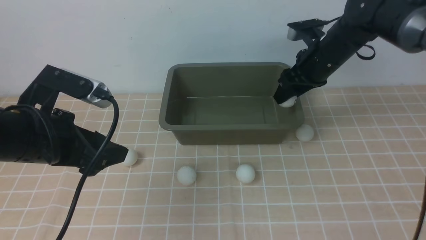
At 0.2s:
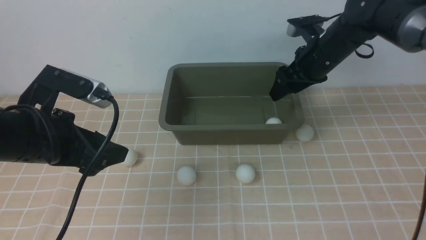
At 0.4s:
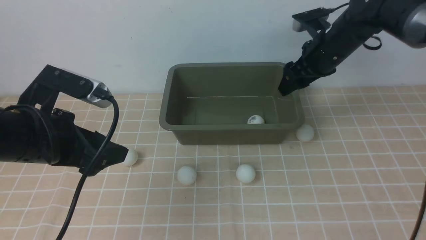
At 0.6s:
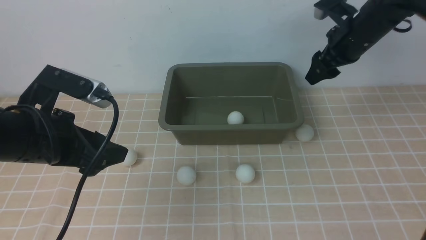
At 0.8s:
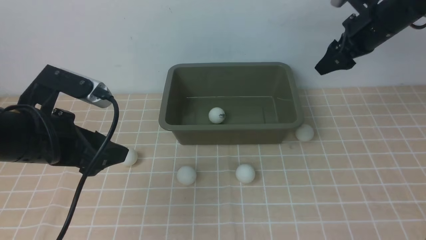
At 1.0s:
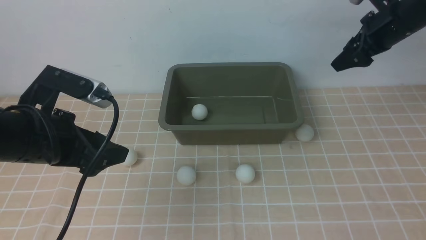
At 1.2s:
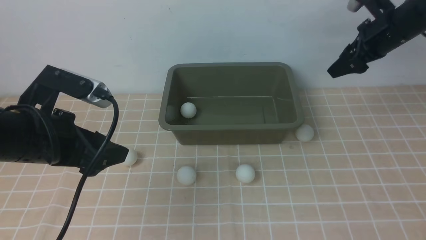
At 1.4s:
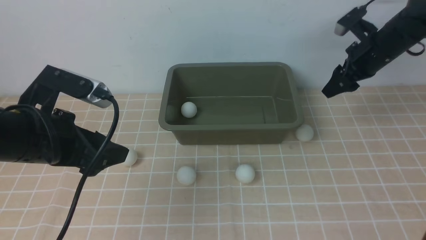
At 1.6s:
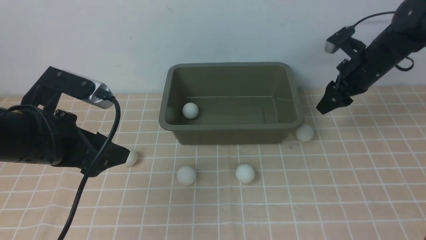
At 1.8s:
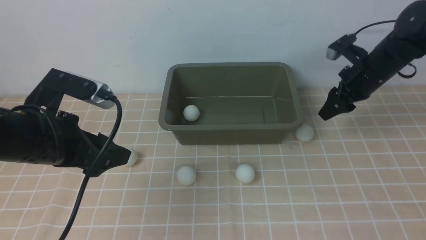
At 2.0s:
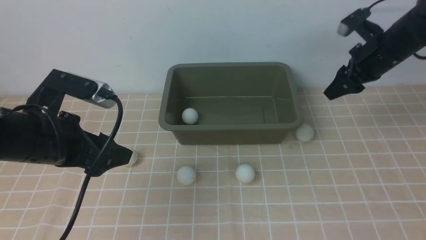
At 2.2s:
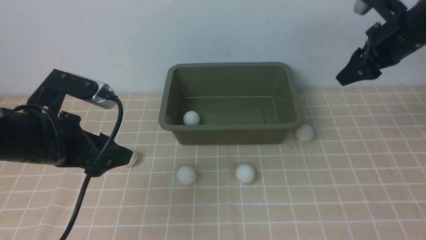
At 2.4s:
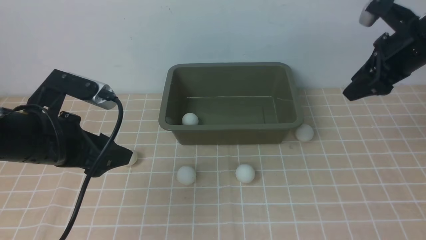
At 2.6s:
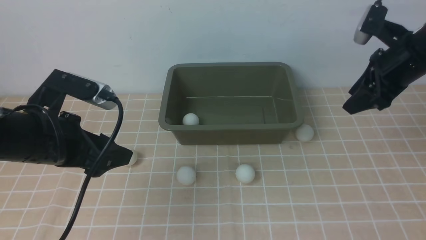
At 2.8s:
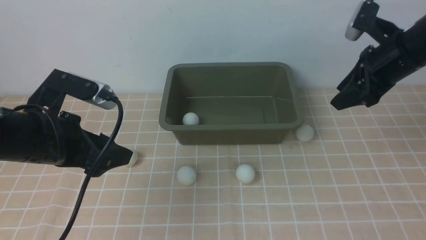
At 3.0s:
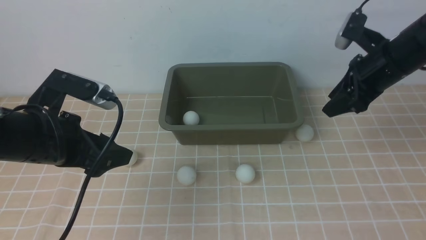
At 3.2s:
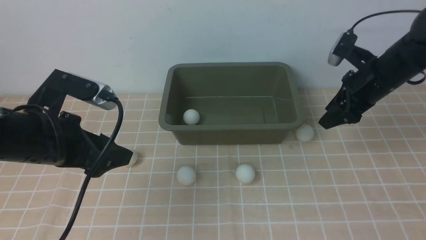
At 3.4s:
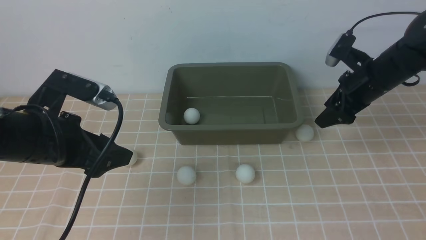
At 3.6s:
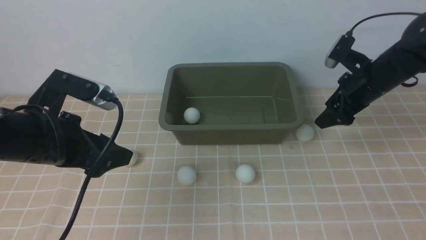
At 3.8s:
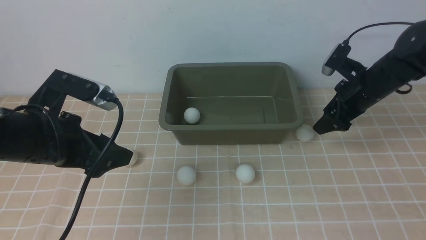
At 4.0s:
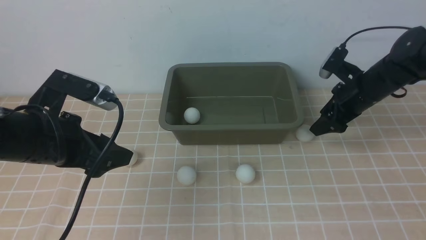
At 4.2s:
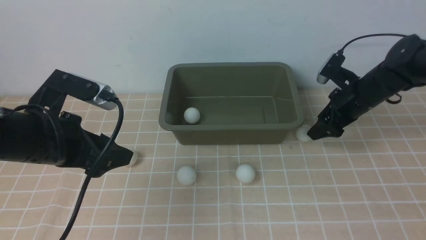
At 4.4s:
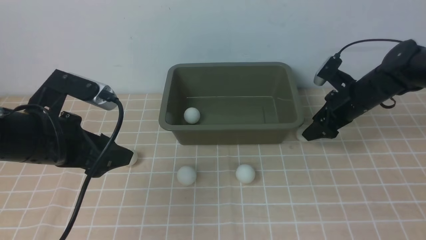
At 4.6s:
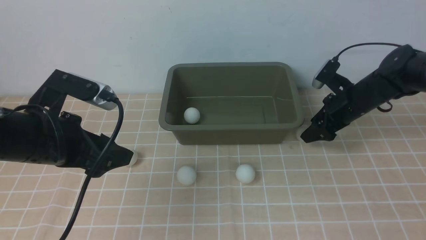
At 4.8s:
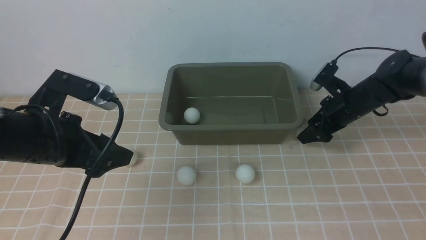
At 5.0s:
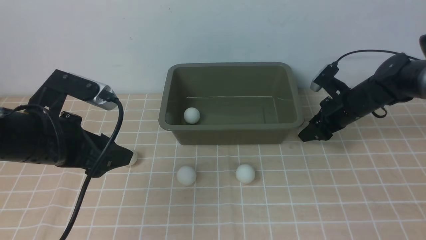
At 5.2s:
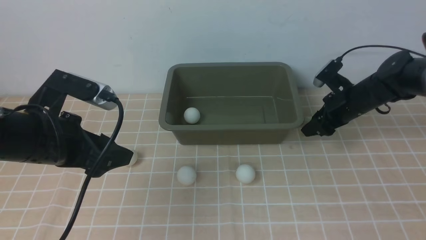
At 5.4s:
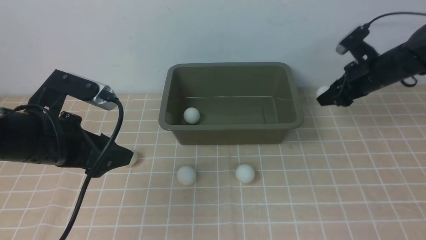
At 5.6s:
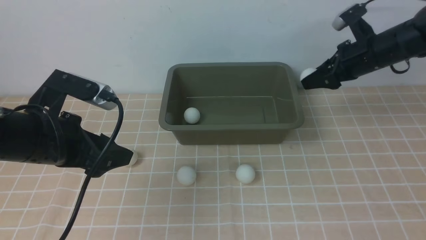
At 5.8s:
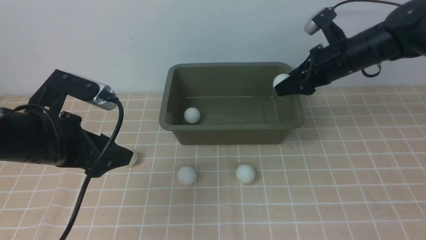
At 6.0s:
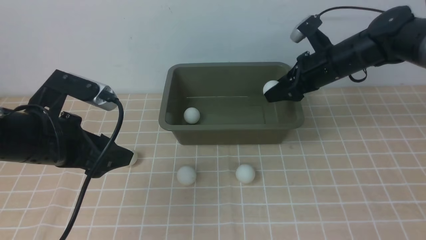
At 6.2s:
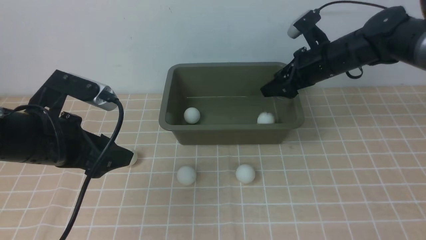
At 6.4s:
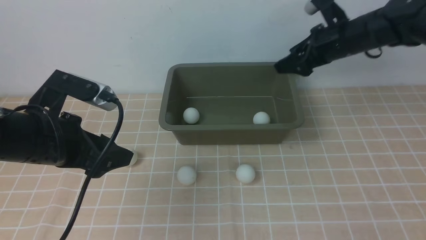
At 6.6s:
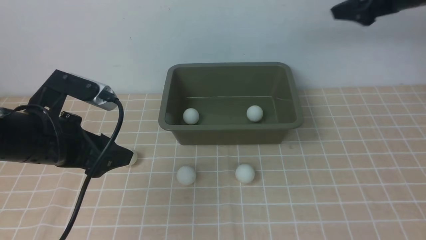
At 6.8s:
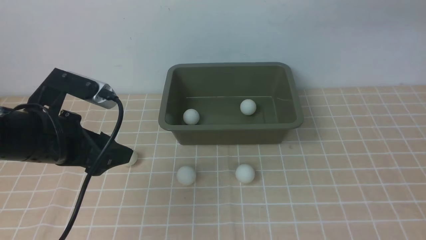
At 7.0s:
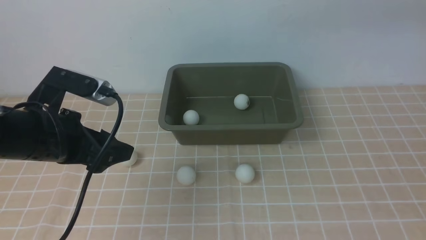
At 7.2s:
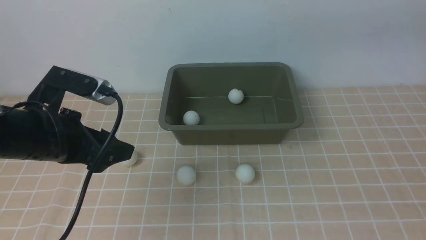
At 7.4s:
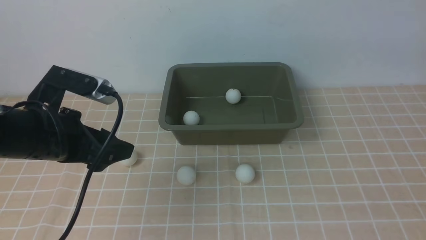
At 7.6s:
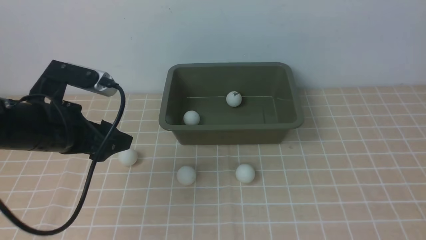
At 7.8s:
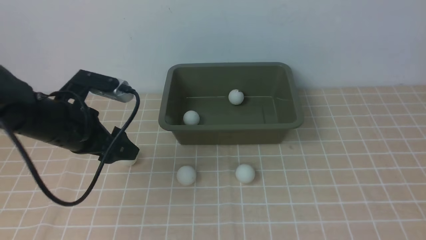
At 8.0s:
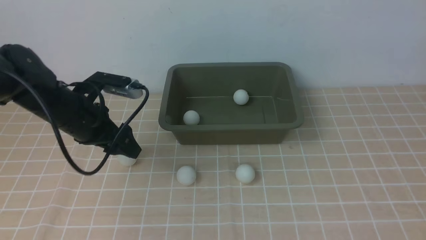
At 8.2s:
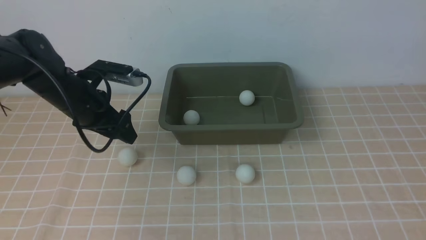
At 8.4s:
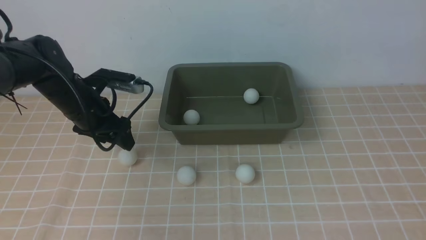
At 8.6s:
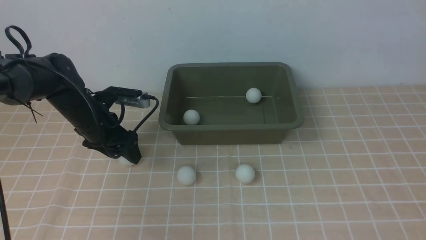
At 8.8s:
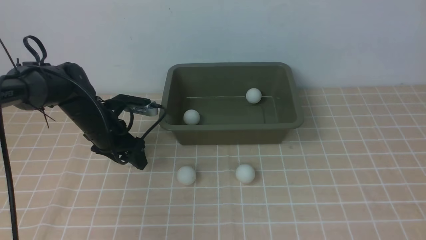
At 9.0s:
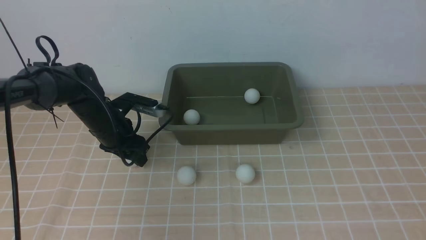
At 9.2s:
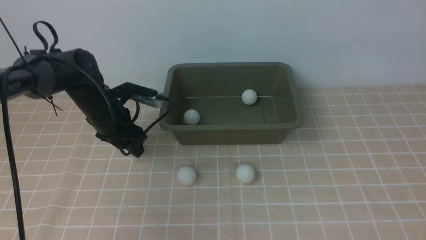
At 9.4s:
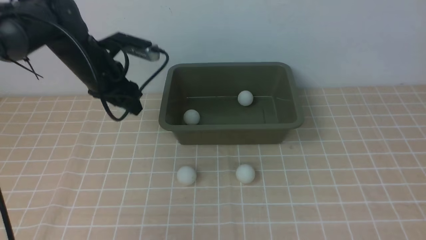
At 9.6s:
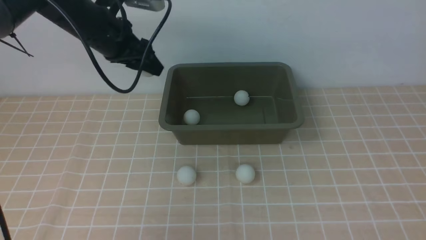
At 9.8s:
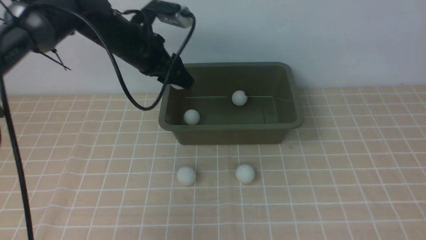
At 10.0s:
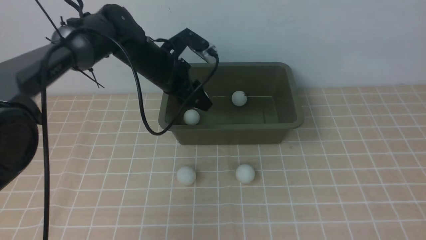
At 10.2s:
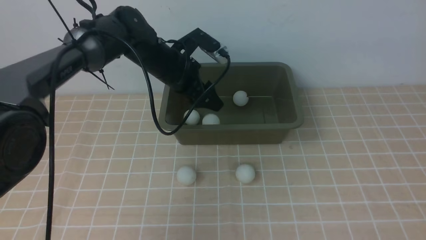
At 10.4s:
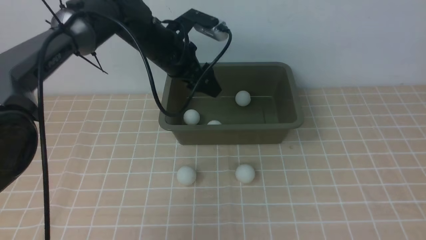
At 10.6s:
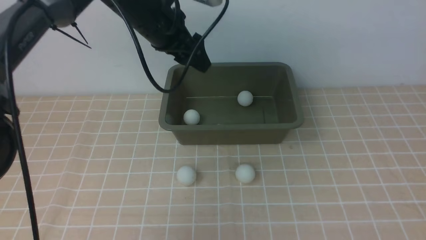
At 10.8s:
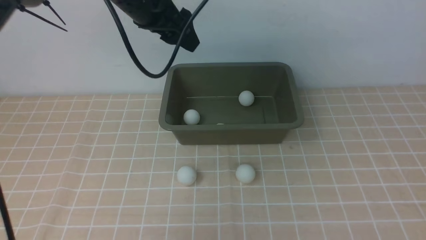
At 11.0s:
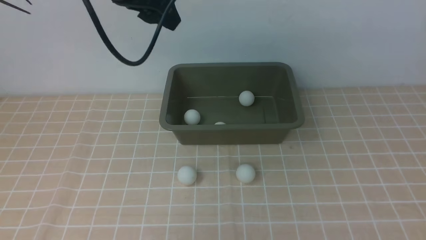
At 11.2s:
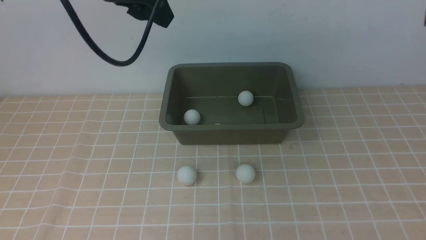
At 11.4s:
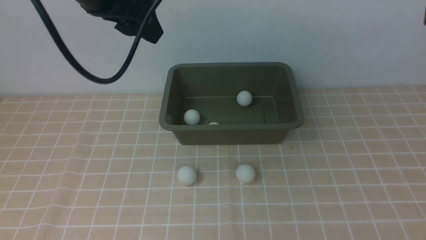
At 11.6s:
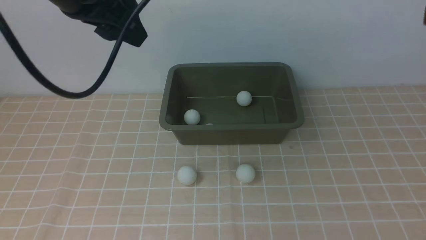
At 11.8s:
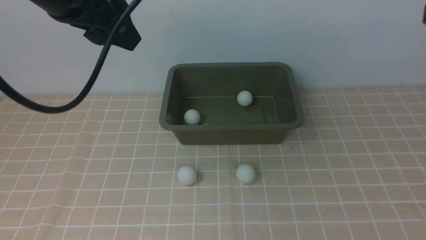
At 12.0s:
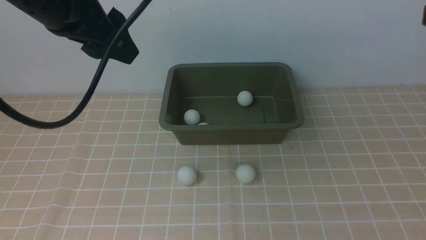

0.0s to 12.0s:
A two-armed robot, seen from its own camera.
Step, 0.0s to 1.4s: use the right arm to put the table tennis ball into the box.
Step, 1.6s to 5.6s: use the right arm to clamp the table tennis ball closest to it.
Step, 5.8s to 6.4s: use the right arm to put the table tennis ball into the box.
Step, 6.6s to 9.2s: use the left arm to clamp the table tennis ball closest to it.
Step, 9.4s to 10.4s: use the left arm to put the table tennis ball into the box.
0.0s to 1.6s: The right gripper travels to the right by about 10 cm, and opens and closes again.
1.6s to 3.0s: The right gripper shifts approximately 5 cm backward.
3.0s to 4.4s: The right gripper is displaced downward by roughly 10 cm, and opens its fingers.
4.4s to 6.0s: The right gripper travels upward and to the left by approximately 10 cm, and closes.
6.0s to 7.6s: The right gripper goes approximately 30 cm backward, upward and to the right.
7.6s to 9.0s: The left gripper travels forward and downward by about 15 cm, and closes its fingers.
9.0s to 10.4s: The left gripper goes up and down, some 15 cm each way, reversing 2 times, and opens.
10.4s to 12.0s: The left gripper moves backward, upward and to the left, roughly 20 cm.

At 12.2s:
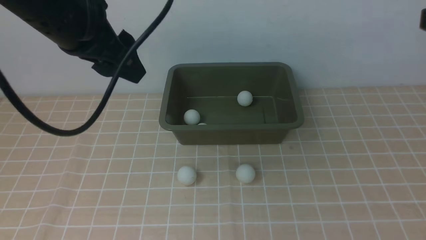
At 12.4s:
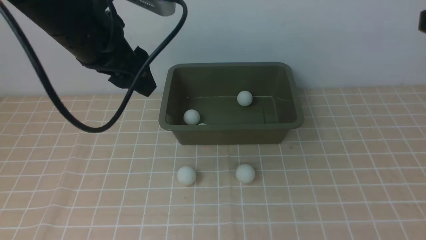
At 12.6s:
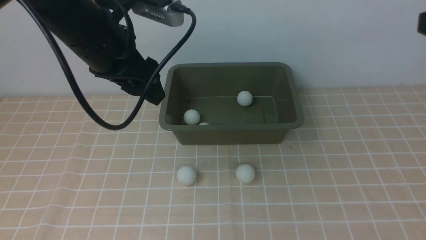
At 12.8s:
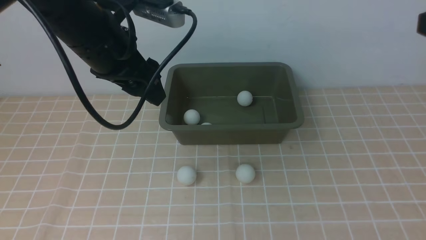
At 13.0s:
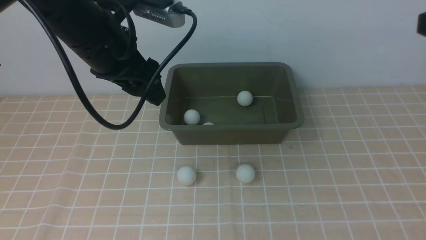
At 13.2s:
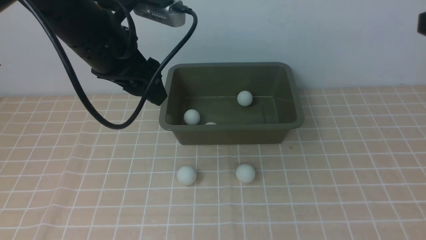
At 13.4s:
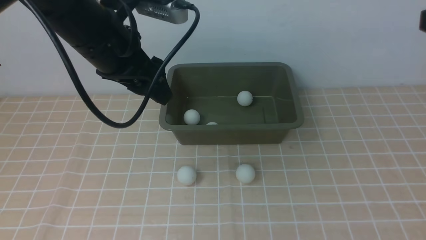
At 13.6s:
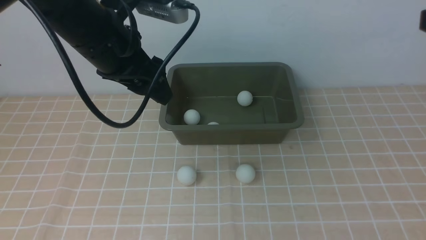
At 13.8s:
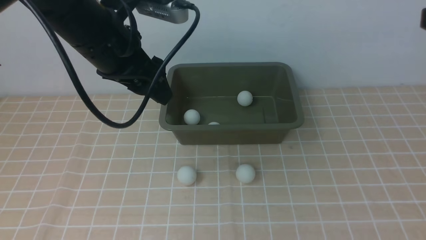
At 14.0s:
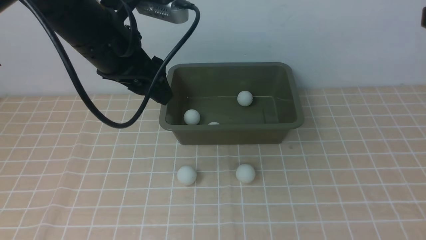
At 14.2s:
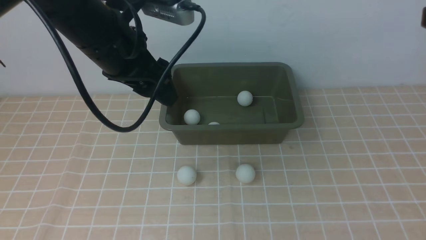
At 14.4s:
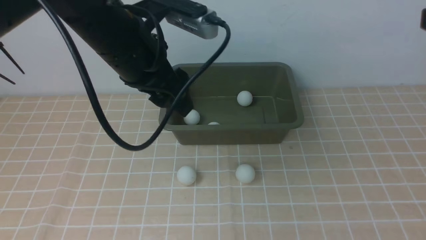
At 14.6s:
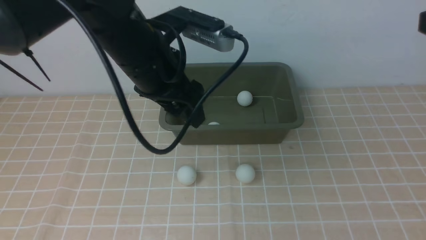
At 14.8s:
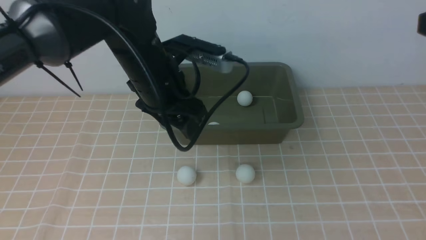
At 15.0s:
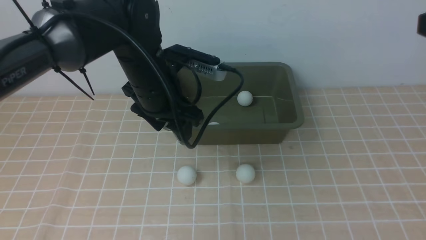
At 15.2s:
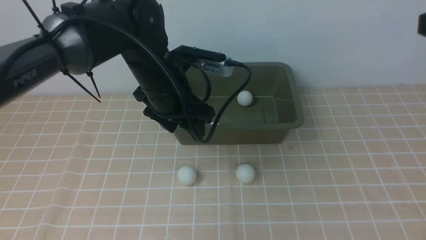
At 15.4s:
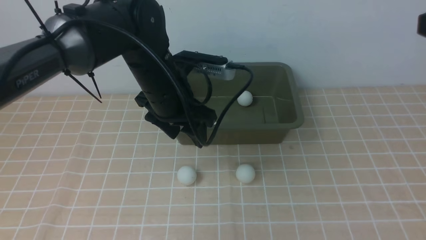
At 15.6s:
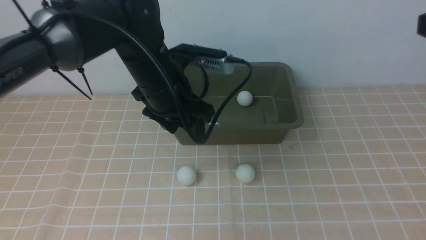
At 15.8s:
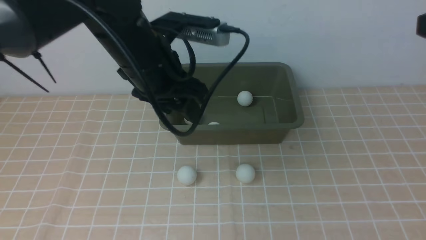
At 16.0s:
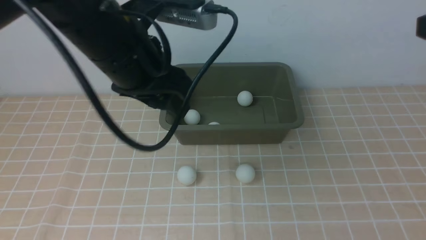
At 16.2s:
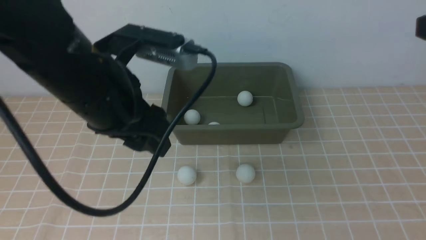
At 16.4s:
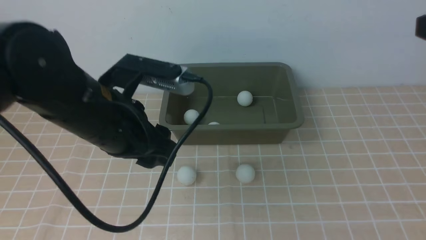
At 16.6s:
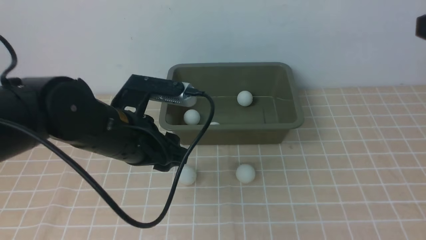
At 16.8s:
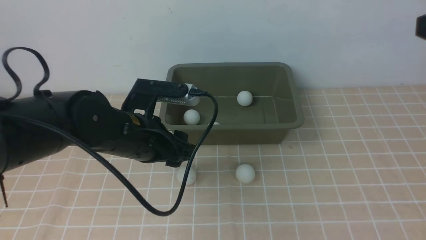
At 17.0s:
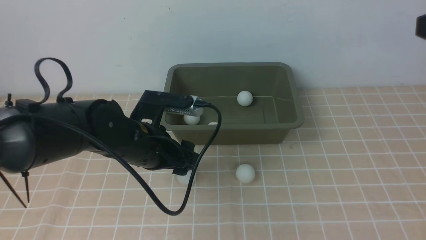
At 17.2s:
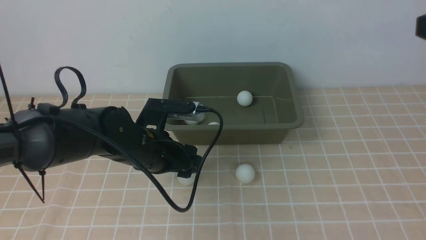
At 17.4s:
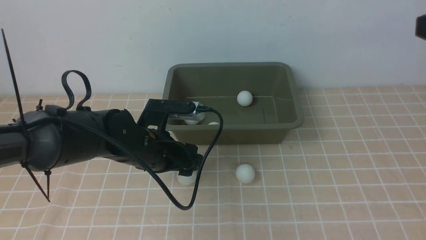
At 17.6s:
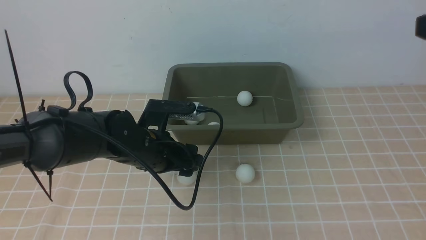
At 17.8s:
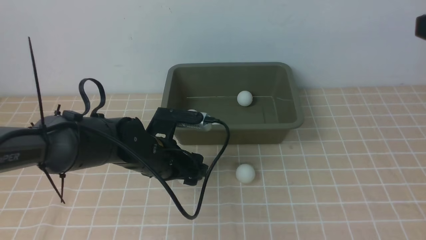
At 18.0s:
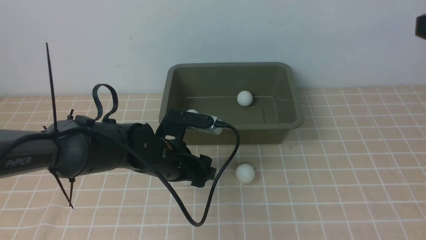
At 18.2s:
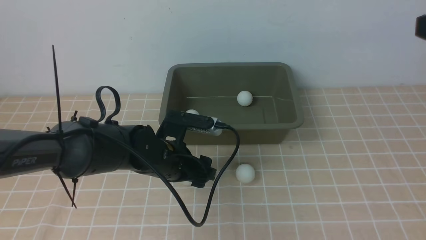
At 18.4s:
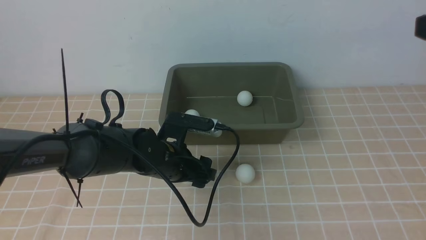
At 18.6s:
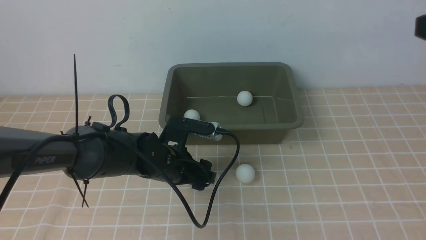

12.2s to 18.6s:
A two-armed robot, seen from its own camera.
12.2s to 13.8s: The left gripper changes place by about 5 cm.
13.8s to 15.4s: The left gripper is displaced downward and to the right by some 10 cm.
15.4s to 17.0s: The left gripper moves downward and backward, approximately 10 cm, and opens up.
17.0s to 18.6s: The left gripper goes roughly 5 cm downward.
